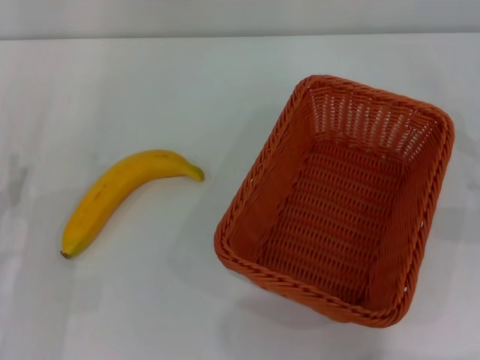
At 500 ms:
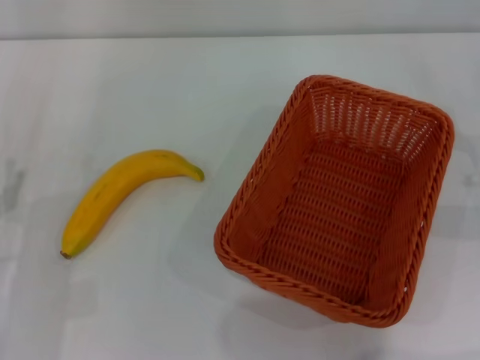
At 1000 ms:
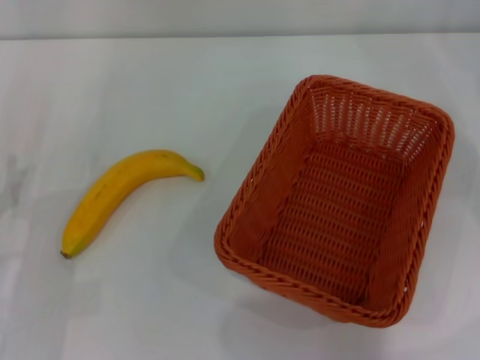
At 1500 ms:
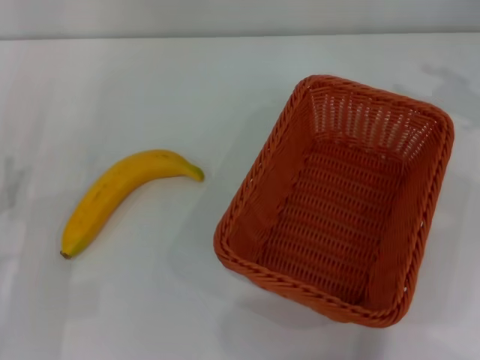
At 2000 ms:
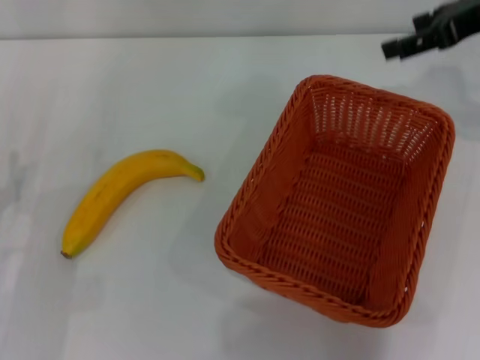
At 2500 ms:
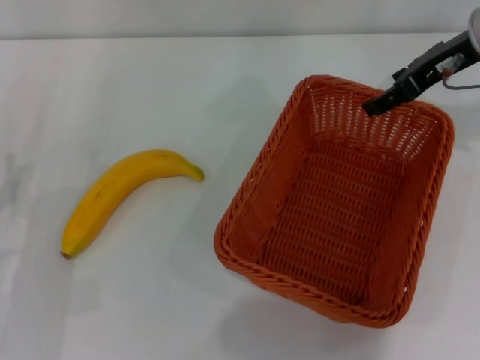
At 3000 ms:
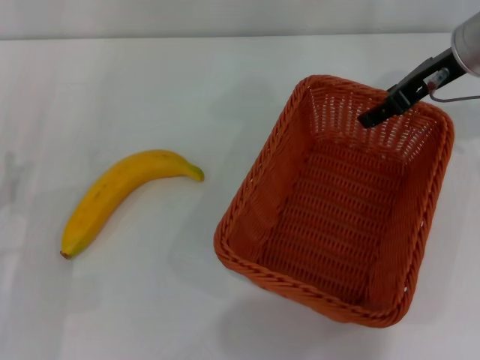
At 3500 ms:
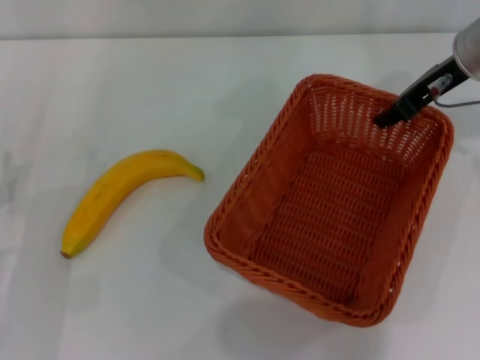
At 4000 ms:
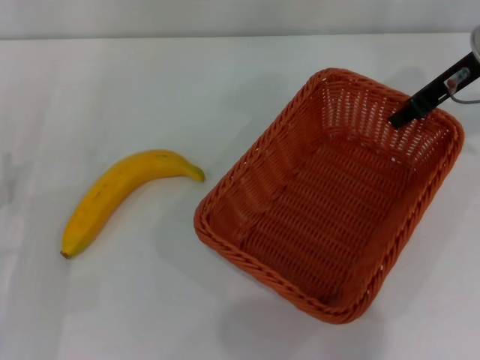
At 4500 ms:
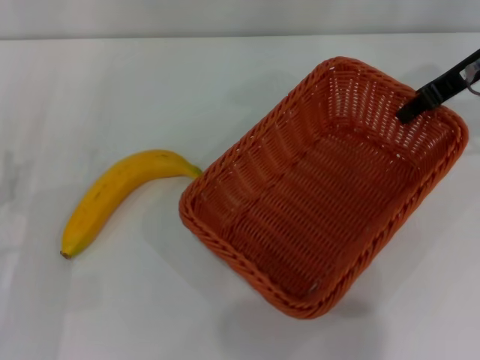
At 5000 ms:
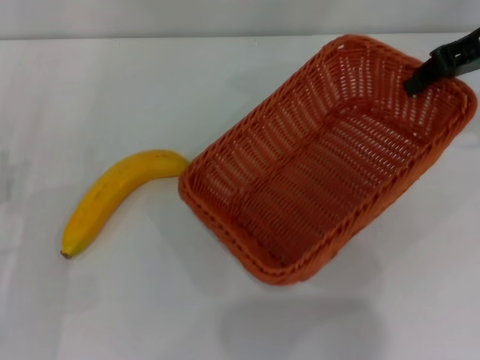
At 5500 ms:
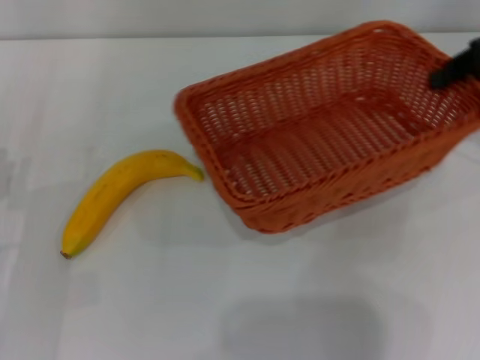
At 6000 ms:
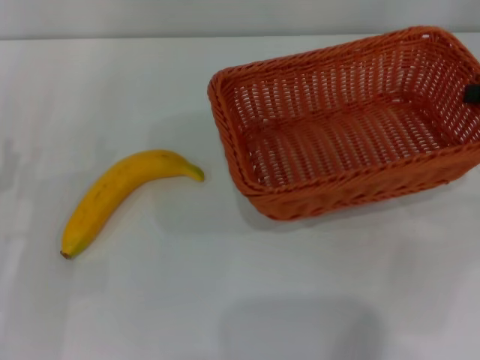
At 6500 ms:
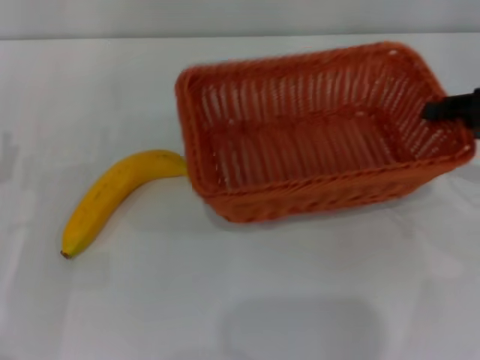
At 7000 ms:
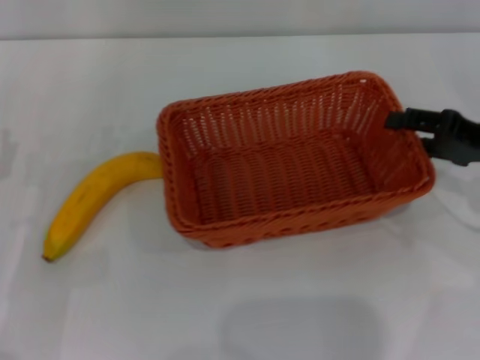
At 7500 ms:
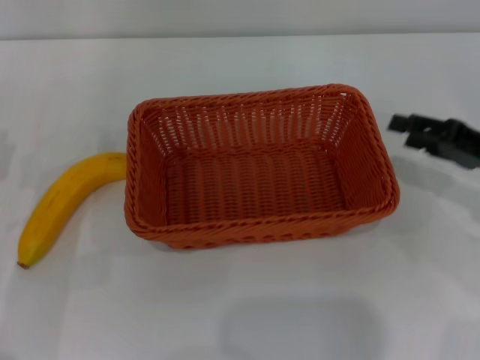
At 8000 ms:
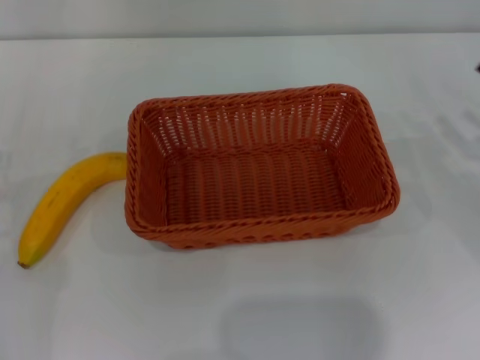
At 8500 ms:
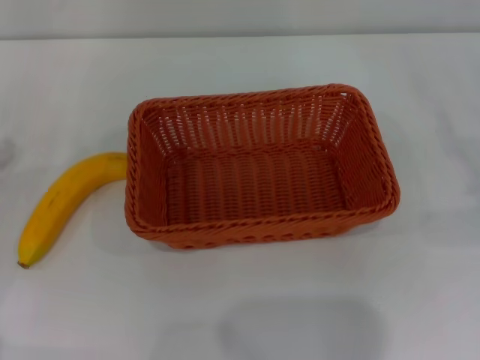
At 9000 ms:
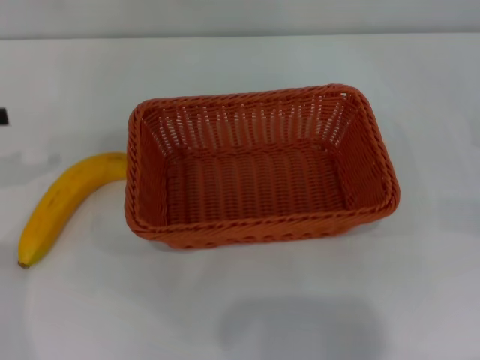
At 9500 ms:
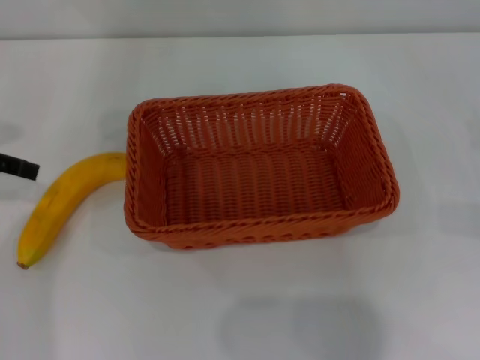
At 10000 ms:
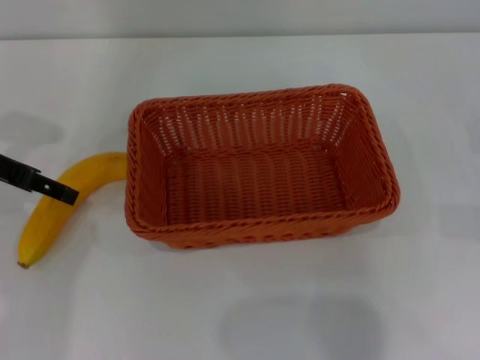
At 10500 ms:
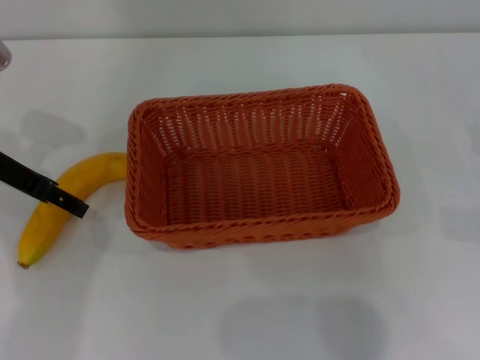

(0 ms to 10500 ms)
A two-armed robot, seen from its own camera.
Step, 0 ms - 3500 ms: Pick up the light basket with the right gripper.
Step, 4000 ms - 7000 ms: Place the light basket in the center of view with the right gripper.
0 ms - 2000 ms: The right gripper is displaced upward, forward and to the left by about 25 cm.
2000 ms - 4000 ms: The right gripper is displaced downward by about 5 cm, and closes.
4000 ms - 6500 ms: The right gripper heads backward and to the right, covering approximately 15 cm.
6500 ms - 8500 ms: The right gripper shifts about 10 cm downward and to the right, and opens, while the left gripper travels to the left by roughly 10 cm.
8500 ms - 10500 ms: The left gripper goes roughly 15 cm forward, to the right and upward.

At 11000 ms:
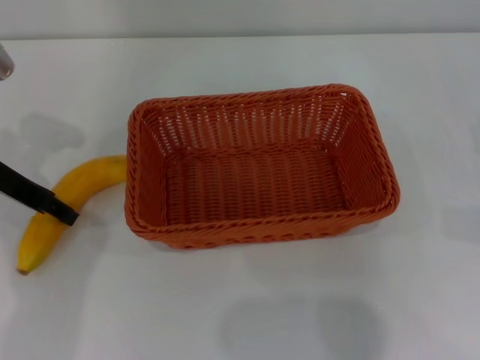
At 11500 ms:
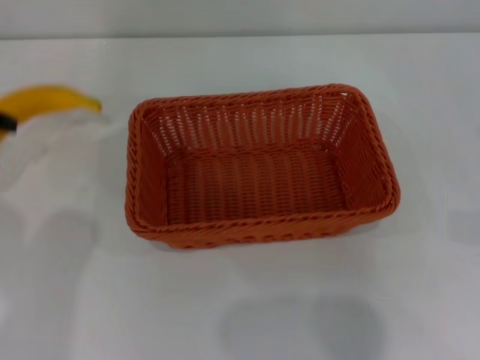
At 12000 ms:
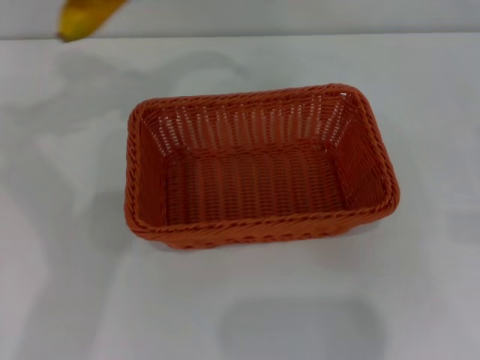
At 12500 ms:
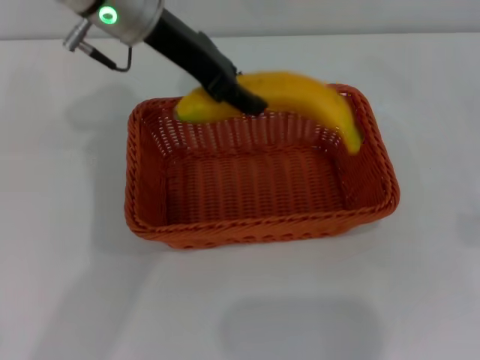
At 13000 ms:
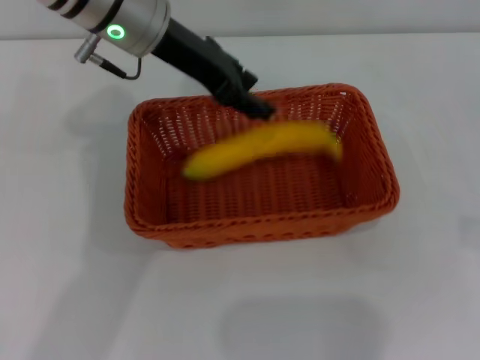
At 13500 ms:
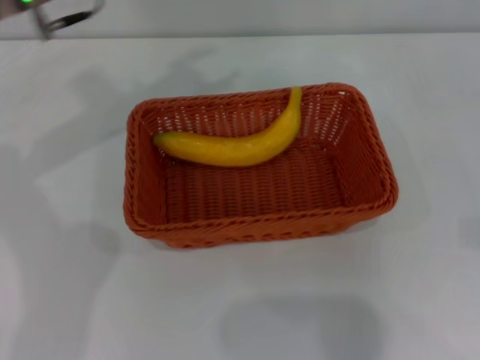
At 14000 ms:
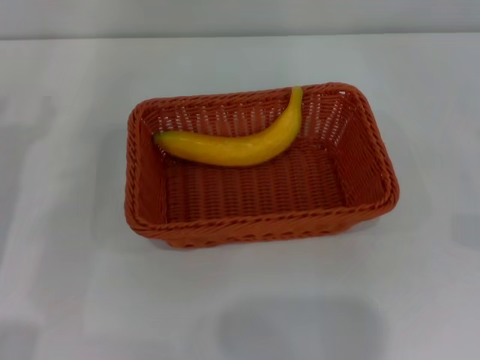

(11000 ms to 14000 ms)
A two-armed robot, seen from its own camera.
Step, 12000 ms - 13000 ms: Place the banana into the light basket with the left gripper.
11000 ms - 12500 ms: The left gripper shifts some 20 cm to the right and upward, and closes.
12500 ms - 14000 ms: The left gripper travels to the left, downward and backward by some 25 cm, and opens up.
